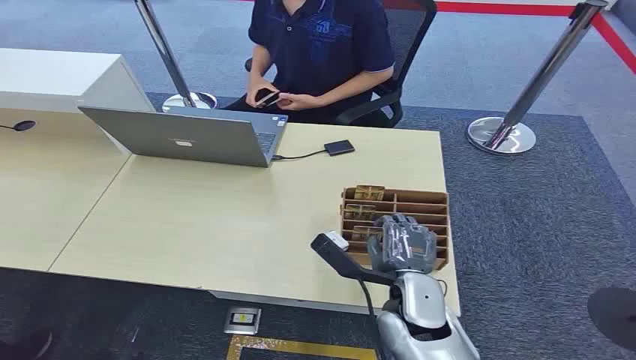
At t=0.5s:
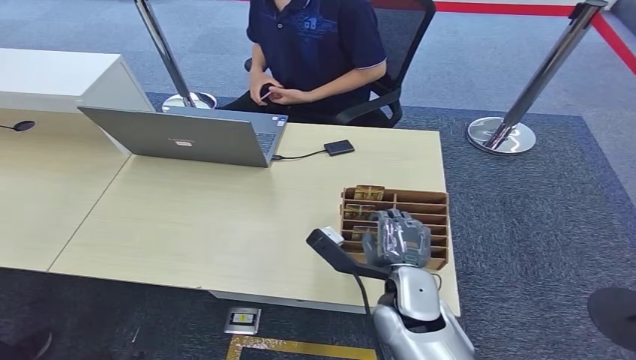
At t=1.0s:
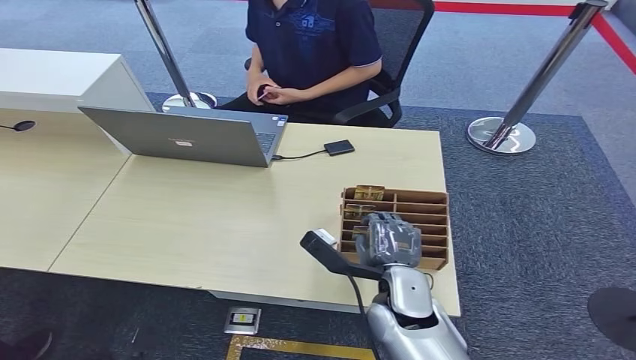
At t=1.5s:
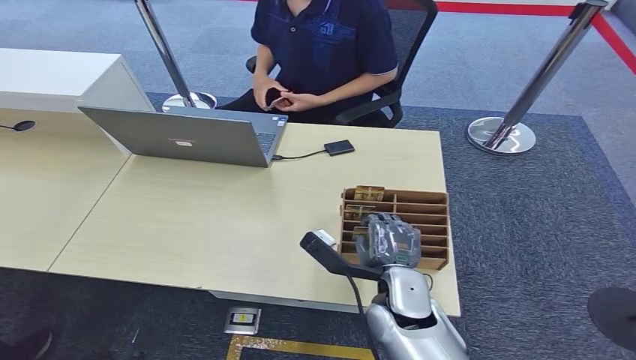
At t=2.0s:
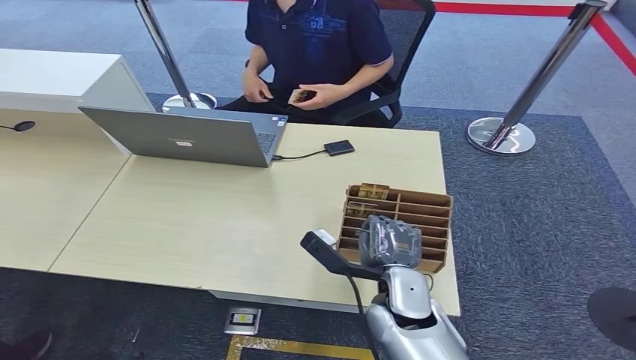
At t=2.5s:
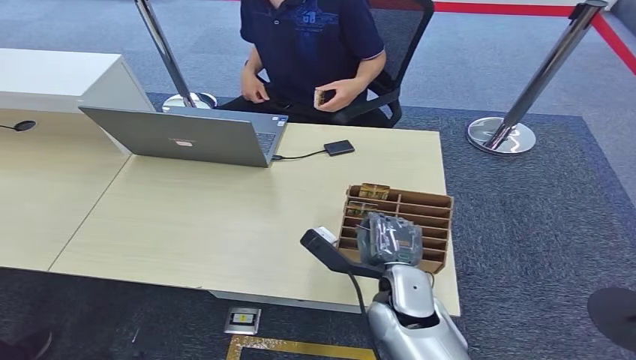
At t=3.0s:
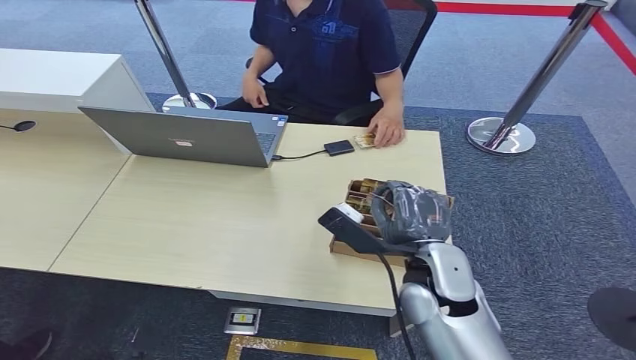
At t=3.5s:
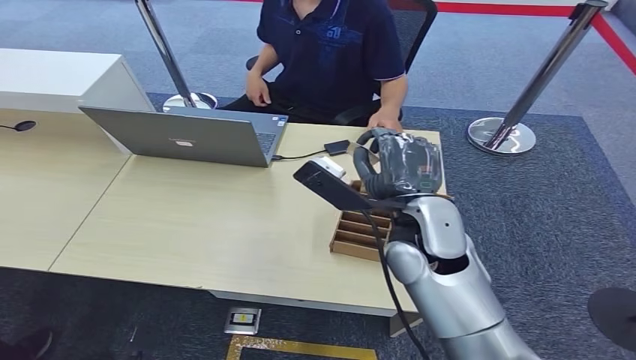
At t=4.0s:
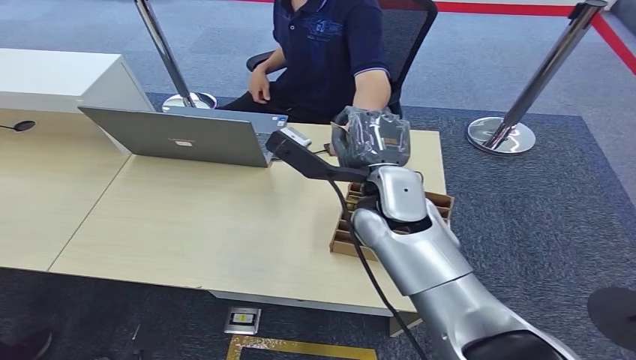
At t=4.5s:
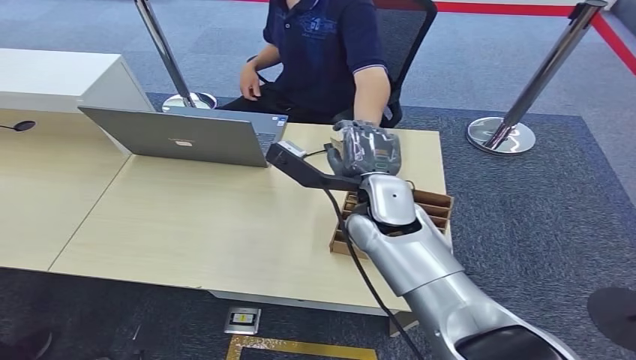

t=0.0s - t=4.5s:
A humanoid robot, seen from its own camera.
Step, t=0.0s - t=3.0s: Pick up the room card from the card holder.
t=2.0s - t=4.5s: The right hand shifts about 20 cm forward and upward.
